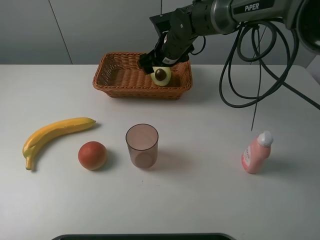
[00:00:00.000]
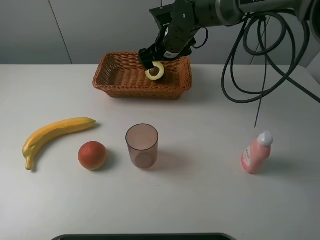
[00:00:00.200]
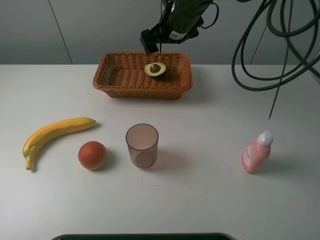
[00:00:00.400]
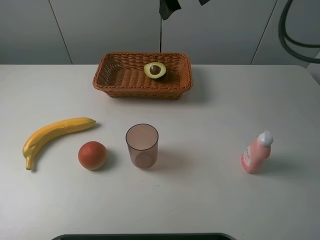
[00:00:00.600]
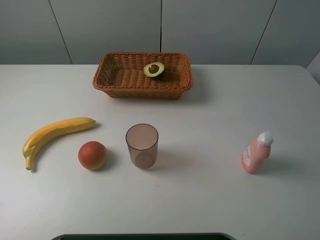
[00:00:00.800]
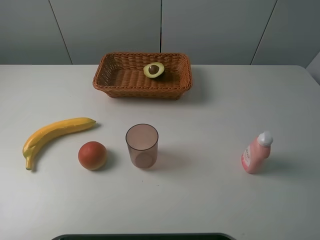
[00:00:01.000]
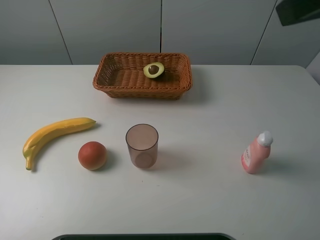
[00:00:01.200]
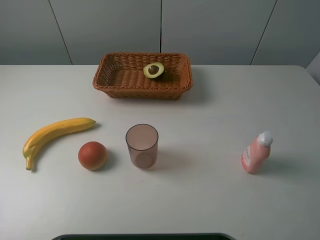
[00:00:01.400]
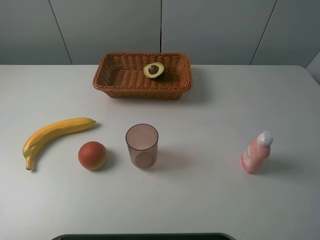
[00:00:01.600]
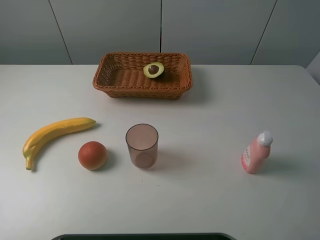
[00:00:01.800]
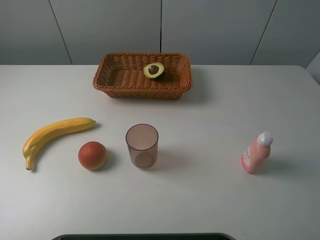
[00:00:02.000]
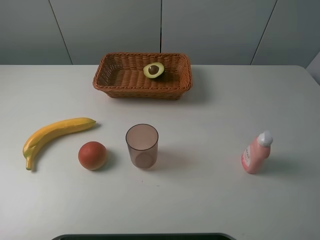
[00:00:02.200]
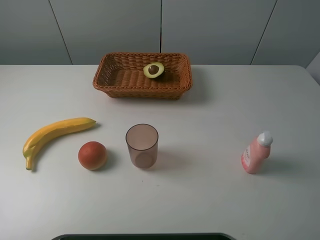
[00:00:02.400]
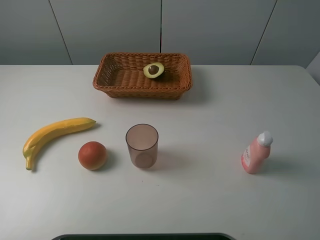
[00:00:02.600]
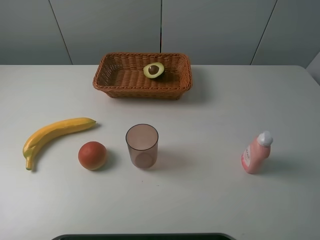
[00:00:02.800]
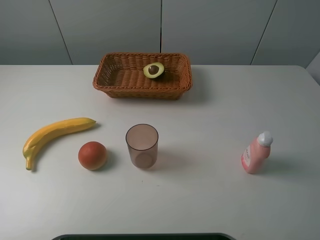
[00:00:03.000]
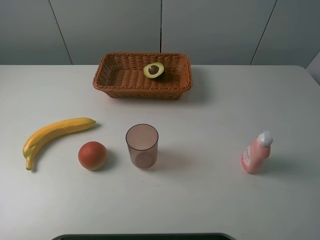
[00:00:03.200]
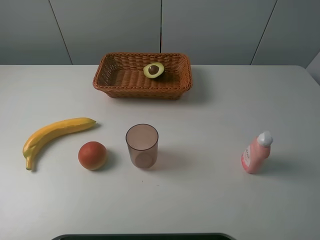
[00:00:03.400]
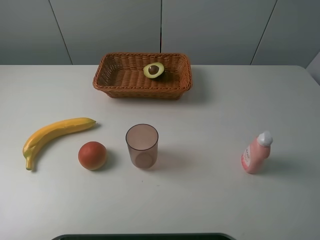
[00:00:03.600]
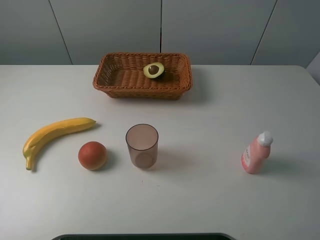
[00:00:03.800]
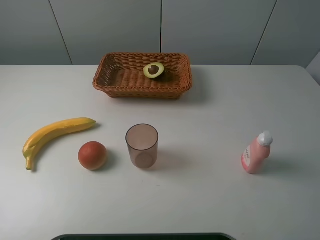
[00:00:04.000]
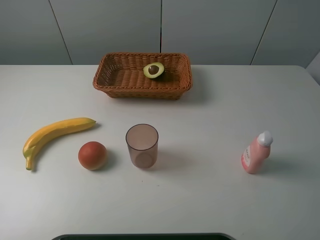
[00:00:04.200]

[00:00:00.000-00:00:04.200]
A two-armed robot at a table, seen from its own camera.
Task of the whole recording: randomly pick up an item from the table and put it in the basket.
00:00:00.000 to 00:00:01.400: The right gripper shifts approximately 50 cm backward, upward and to the right.
00:00:02.800 to 00:00:04.200: The two grippers keep their place.
